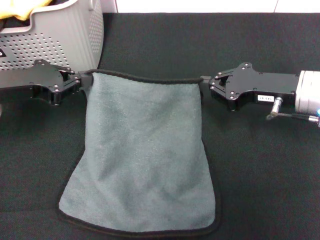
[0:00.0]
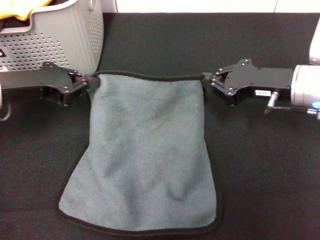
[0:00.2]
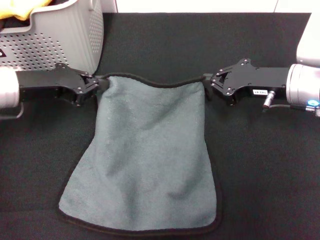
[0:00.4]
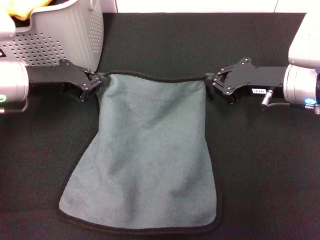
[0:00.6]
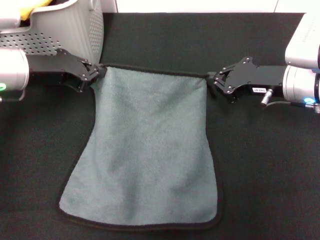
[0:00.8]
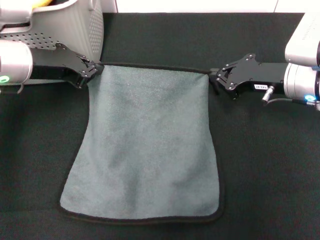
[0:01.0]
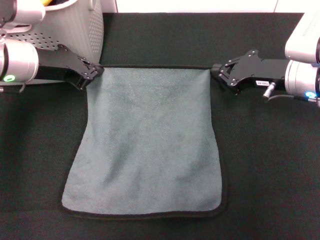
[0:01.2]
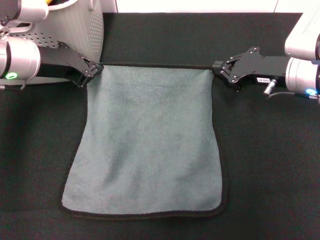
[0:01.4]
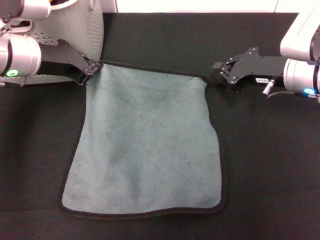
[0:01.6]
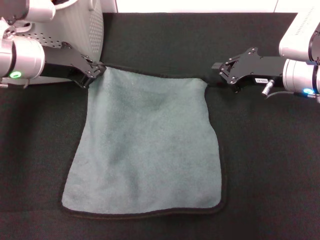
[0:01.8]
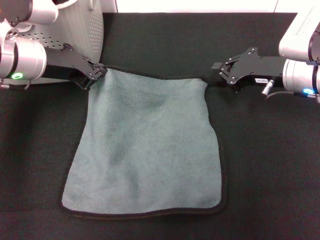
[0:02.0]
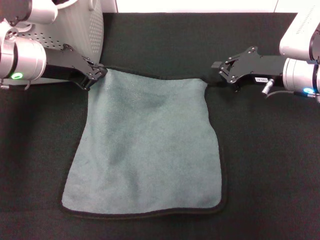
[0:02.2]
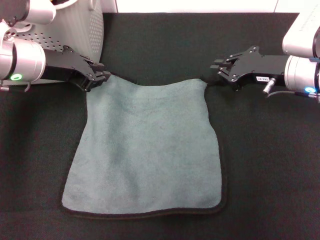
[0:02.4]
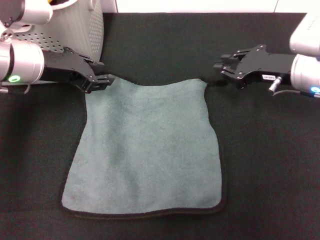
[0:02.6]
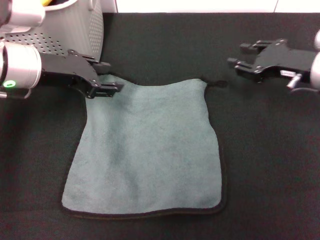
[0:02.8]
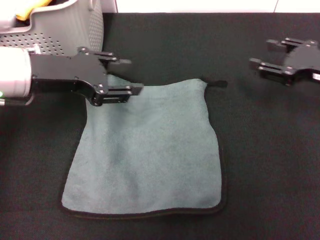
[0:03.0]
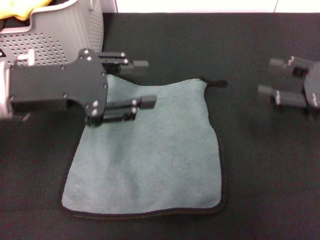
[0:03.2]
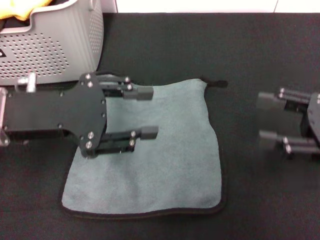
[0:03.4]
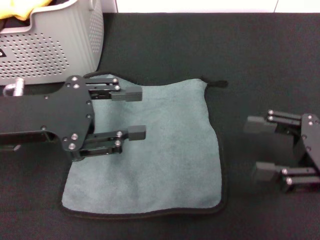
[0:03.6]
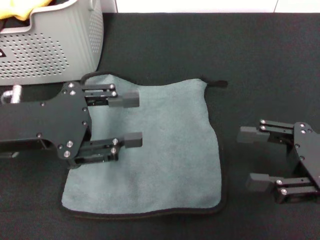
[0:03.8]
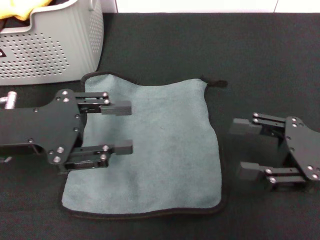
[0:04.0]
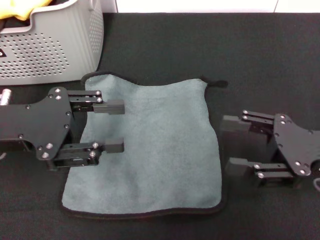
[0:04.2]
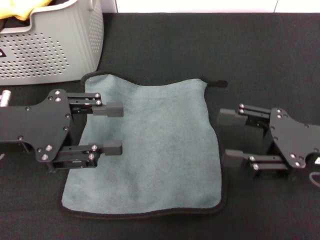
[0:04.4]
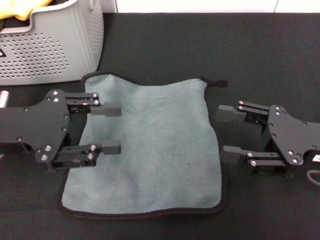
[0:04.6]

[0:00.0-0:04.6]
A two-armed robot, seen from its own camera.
Task of the whole recording: pick up the towel from the storage box and lay it flat on the black tablecloth.
Step, 0:00.0 to 0:02.2: Spread the towel flat with the right gripper.
0:00.0 to 0:01.6: The left gripper heads to the right and forward, covering some 10 cm.
0:01.6 to 0:03.0: The left gripper travels backward by roughly 5 cm, and opens. Meanwhile the right gripper heads to the right, covering roughly 10 cm, and opens.
0:03.0 to 0:04.6: The grippers both shift backward by some 5 cm. The right gripper opens its fingers.
